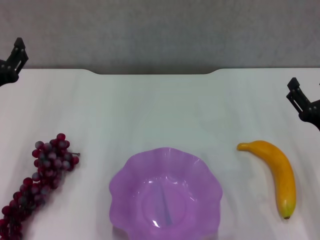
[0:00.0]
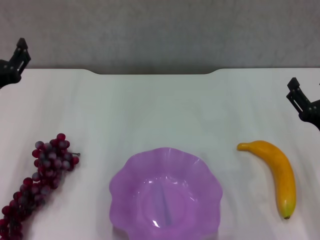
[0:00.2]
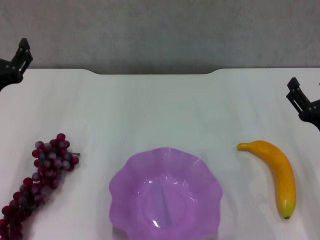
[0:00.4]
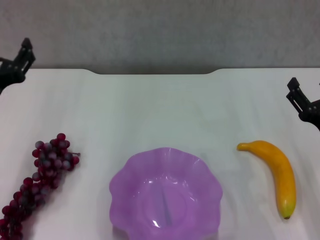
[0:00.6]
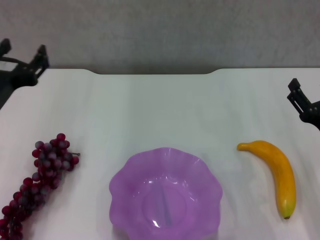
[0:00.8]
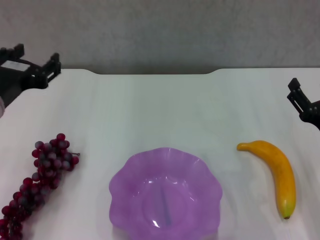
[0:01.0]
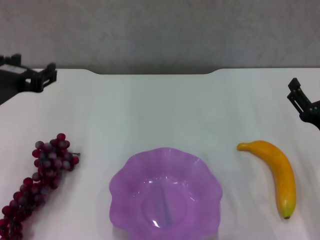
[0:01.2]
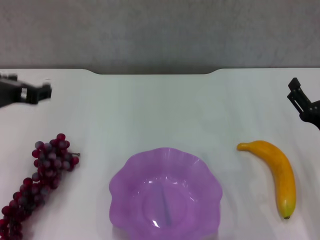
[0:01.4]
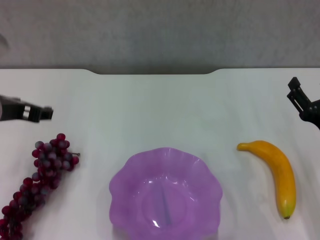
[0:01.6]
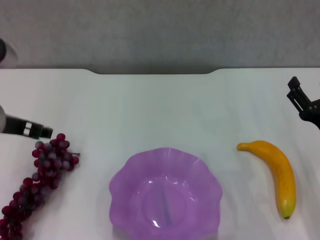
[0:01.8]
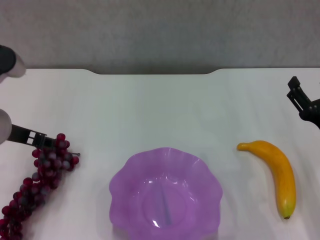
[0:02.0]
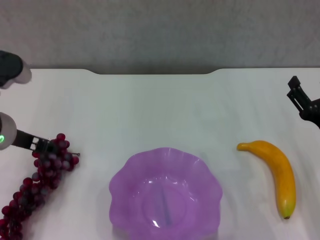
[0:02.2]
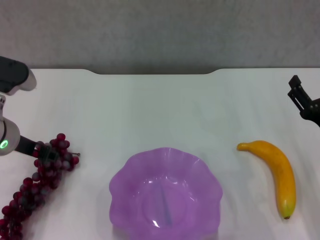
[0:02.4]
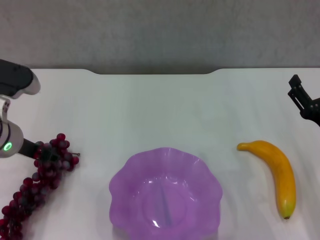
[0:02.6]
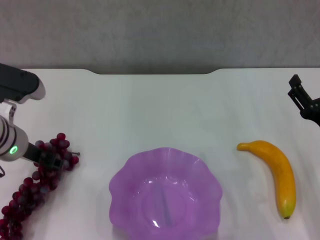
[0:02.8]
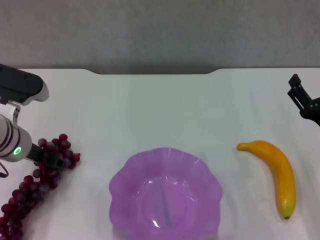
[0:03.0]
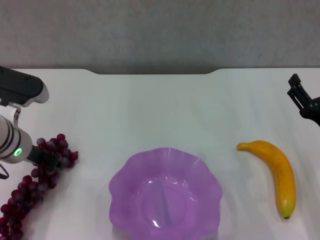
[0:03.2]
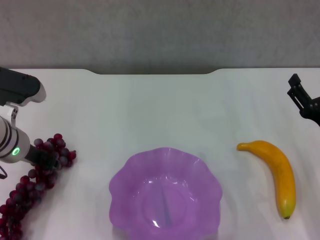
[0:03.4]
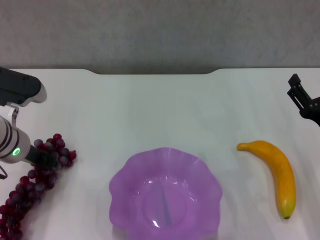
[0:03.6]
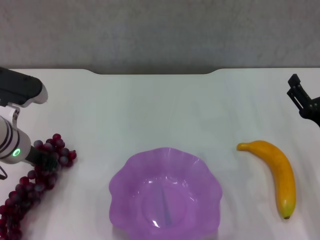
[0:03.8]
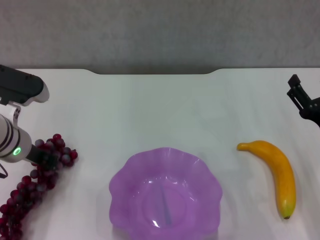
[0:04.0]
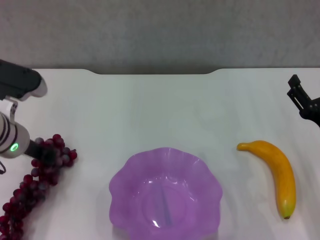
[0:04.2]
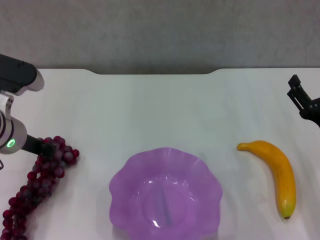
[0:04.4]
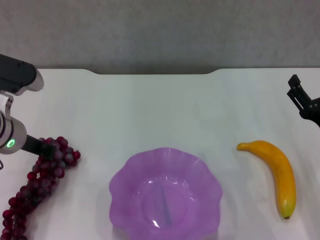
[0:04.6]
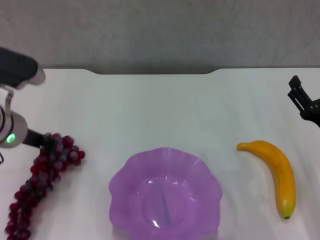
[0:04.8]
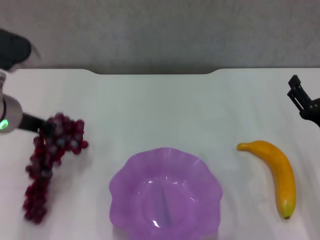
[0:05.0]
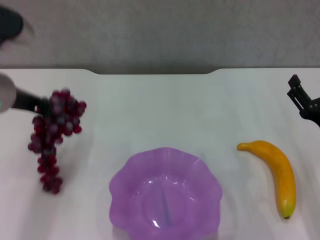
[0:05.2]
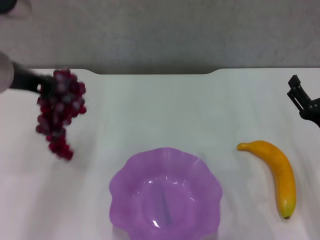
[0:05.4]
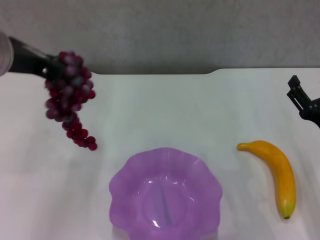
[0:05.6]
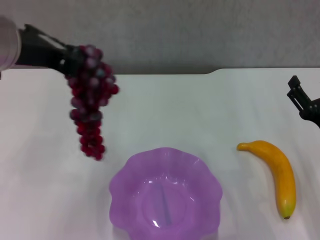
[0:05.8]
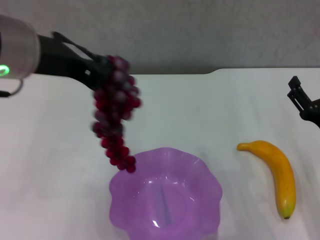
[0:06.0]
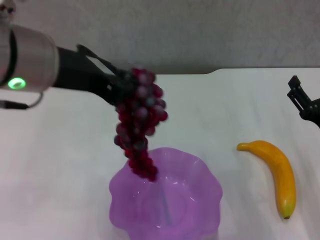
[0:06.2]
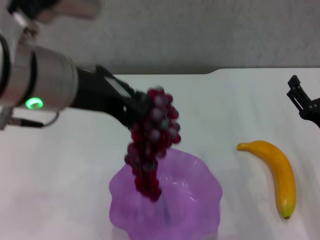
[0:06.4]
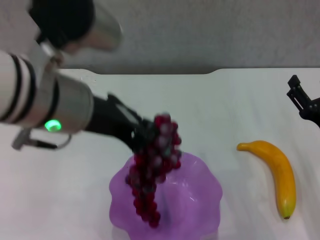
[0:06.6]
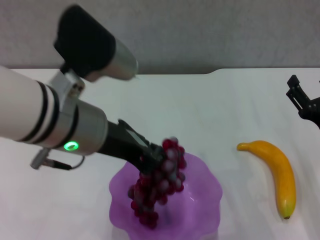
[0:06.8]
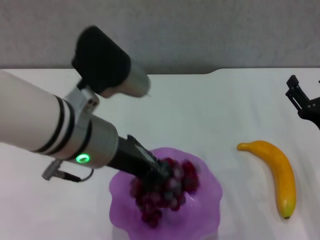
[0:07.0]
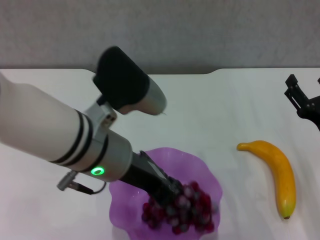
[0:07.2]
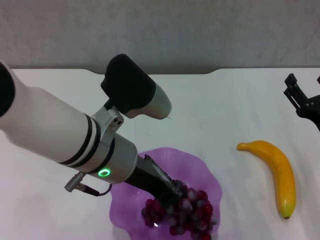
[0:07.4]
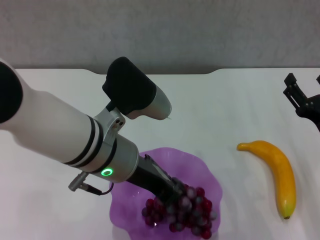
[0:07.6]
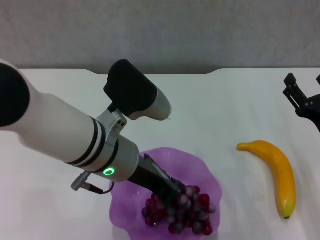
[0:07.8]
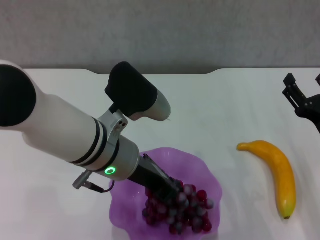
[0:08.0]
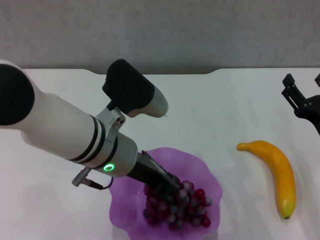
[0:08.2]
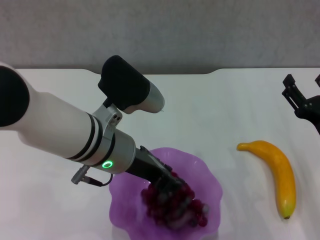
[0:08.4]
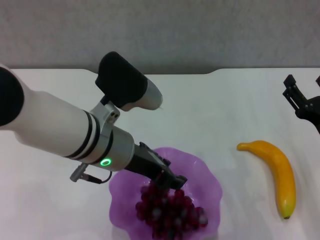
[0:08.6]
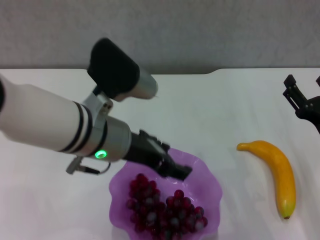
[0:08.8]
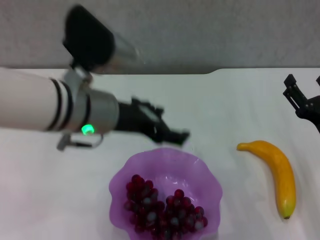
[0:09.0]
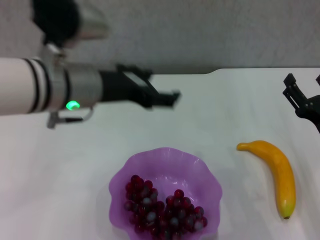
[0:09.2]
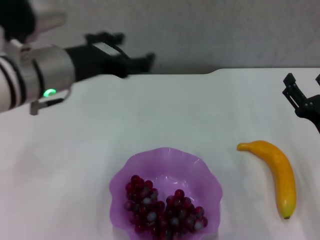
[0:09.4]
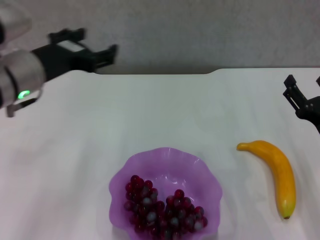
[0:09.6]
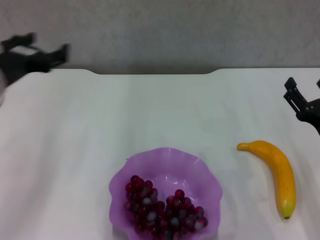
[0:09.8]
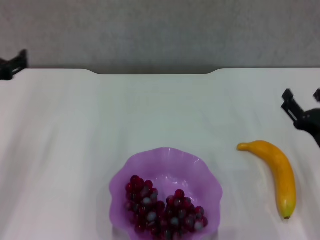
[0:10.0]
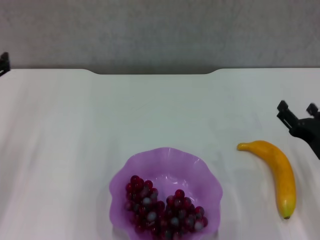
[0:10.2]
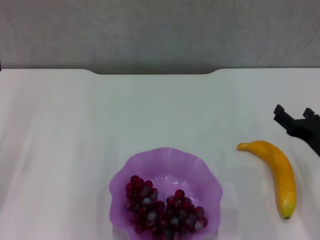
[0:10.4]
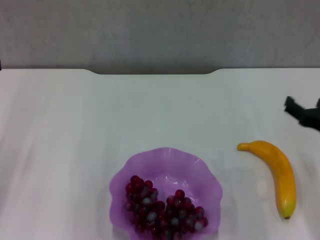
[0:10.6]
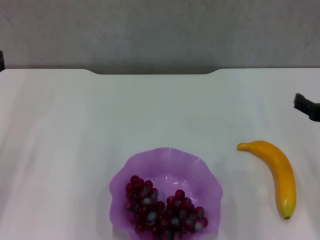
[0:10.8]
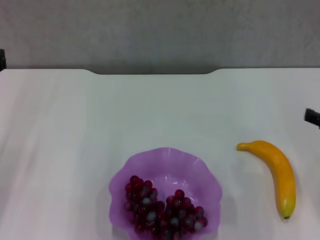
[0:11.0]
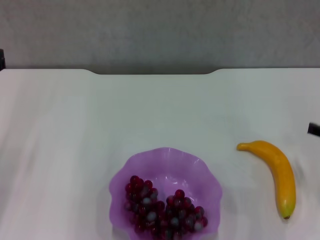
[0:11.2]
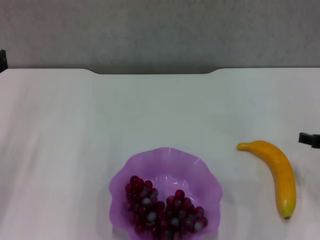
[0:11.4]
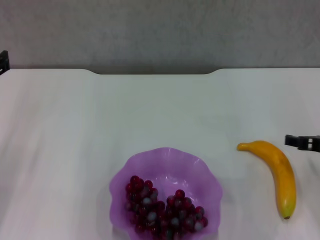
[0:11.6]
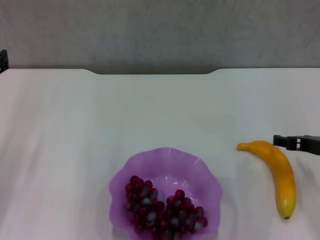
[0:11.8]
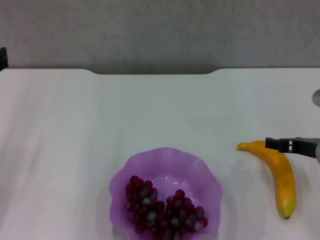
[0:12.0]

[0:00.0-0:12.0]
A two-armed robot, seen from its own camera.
Step, 0:00.0 to 0:03.6: Grasp the grape with left gripper.
Step, 0:04.0 to 0:08.6: Place the grape in the purple plate with left gripper.
0:00.0 to 0:01.6: The left gripper shifts some 5 cm upward.
0:01.6 to 0:03.0: The left gripper goes about 10 cm downward.
0:03.0 to 0:04.4: The left gripper closes up.
0:04.4 to 0:06.0: The left gripper moves upward, approximately 15 cm.
0:06.0 to 0:07.6: The left gripper heads downward and to the right, covering about 15 cm.
0:07.6 to 0:09.0: The left gripper opens its fingers.
0:09.0 to 0:10.4: The left gripper travels to the left by approximately 20 cm.
0:10.4 to 0:12.0: The right gripper travels upward and back again, about 10 cm each way.

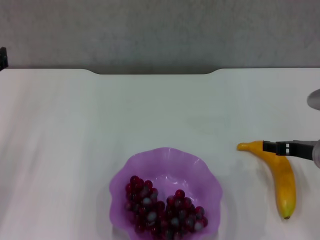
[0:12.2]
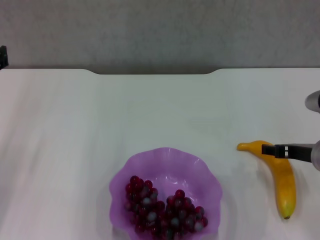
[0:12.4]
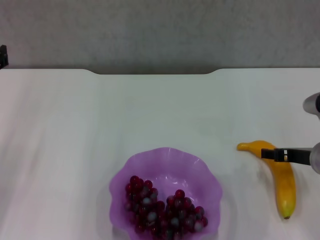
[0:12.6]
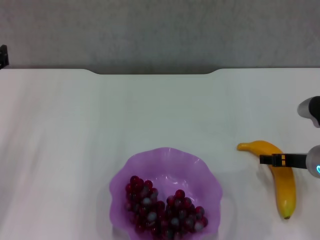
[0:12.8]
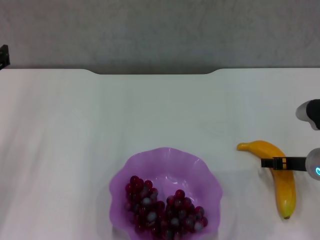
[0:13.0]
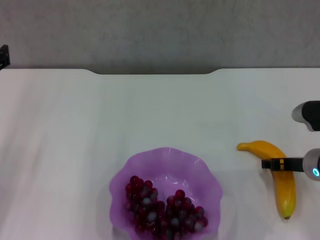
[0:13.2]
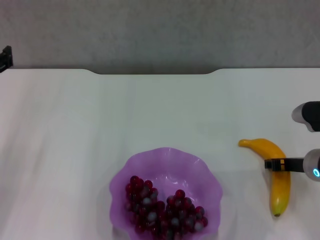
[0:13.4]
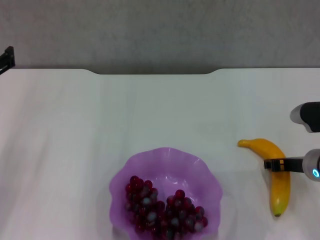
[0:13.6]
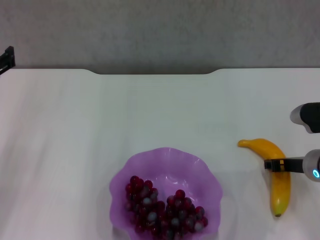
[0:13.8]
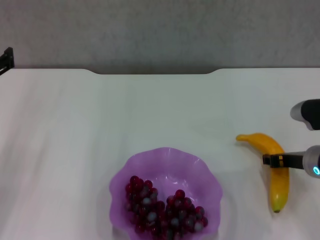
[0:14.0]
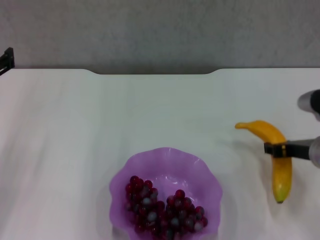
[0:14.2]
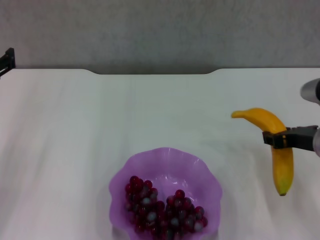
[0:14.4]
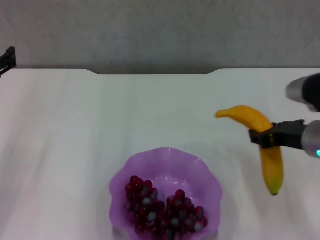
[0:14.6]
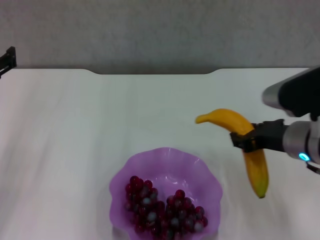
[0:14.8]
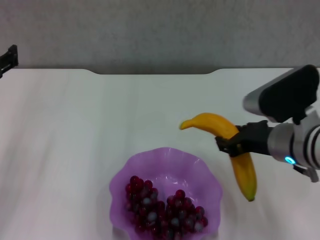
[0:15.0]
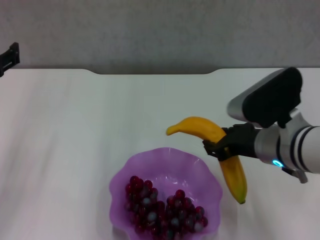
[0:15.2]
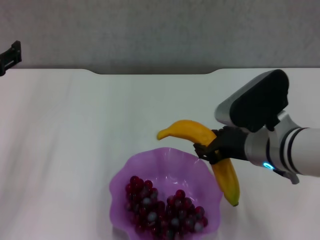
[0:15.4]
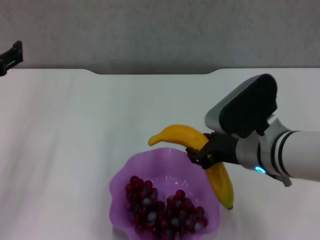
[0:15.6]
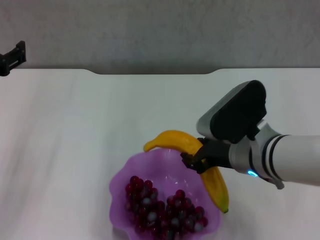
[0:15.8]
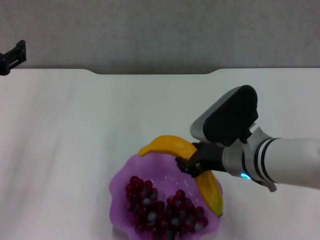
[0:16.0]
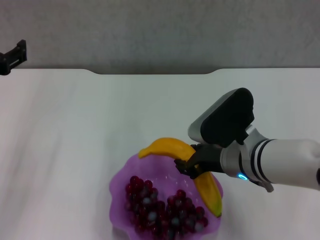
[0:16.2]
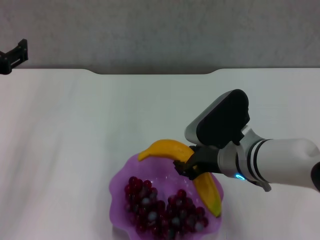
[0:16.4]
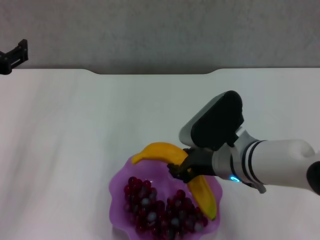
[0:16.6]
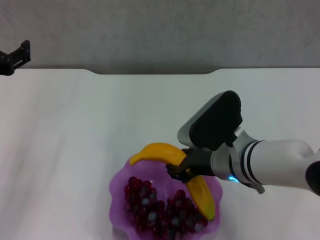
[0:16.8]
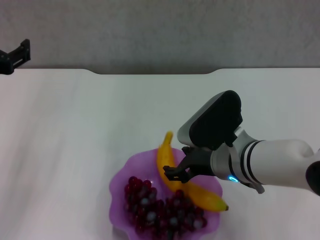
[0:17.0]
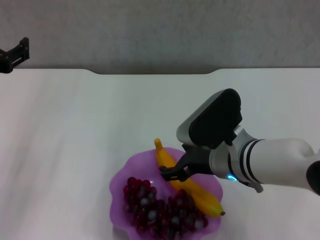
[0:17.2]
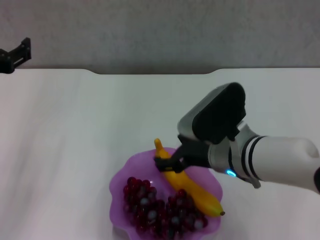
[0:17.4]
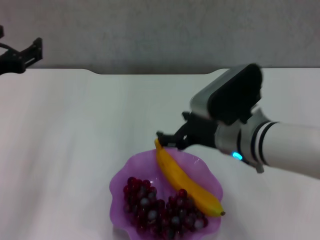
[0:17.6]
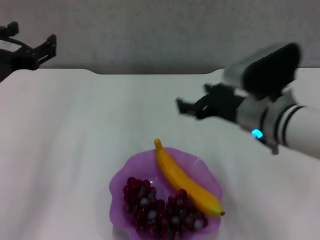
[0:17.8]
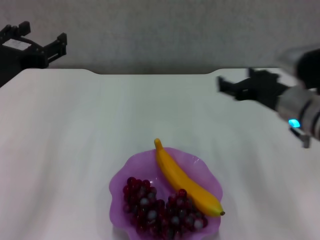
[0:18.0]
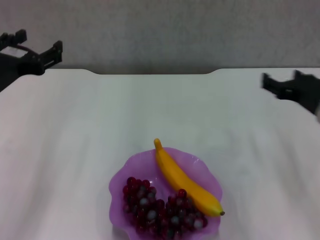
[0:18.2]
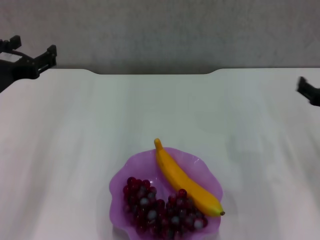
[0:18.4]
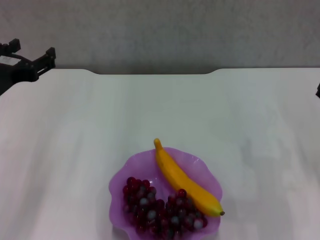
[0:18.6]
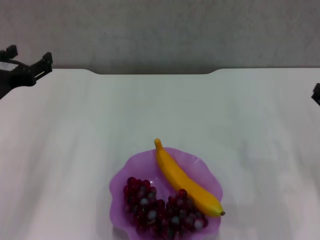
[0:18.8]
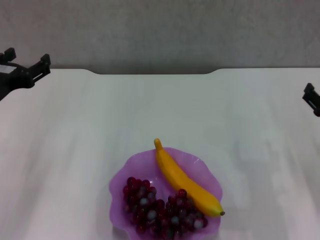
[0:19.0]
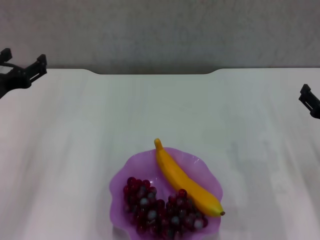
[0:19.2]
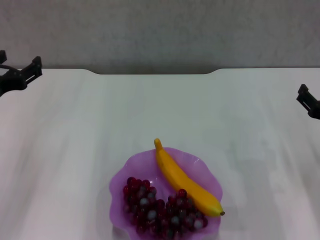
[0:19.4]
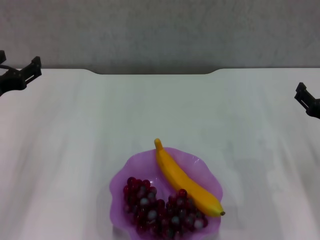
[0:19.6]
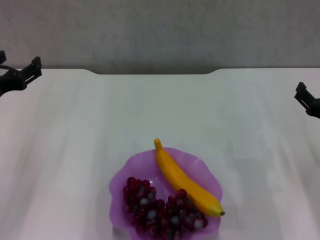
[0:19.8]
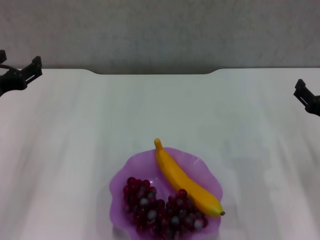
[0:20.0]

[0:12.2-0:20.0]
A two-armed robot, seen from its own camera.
Step, 0:13.8 to 0:17.2: Place the banana in the purple plate with right gripper.
0:12.2 to 0:13.8: The right gripper closes its fingers.
0:13.8 to 0:15.4: The right gripper moves to the left and upward, about 15 cm.
0:15.4 to 0:16.8: The right gripper shifts by roughly 5 cm.
0:16.8 to 0:18.4: The right gripper shifts roughly 20 cm to the right, and opens up.
0:18.4 to 0:20.0: The grippers make only small movements.
